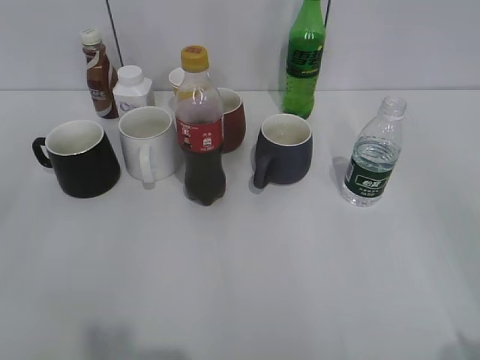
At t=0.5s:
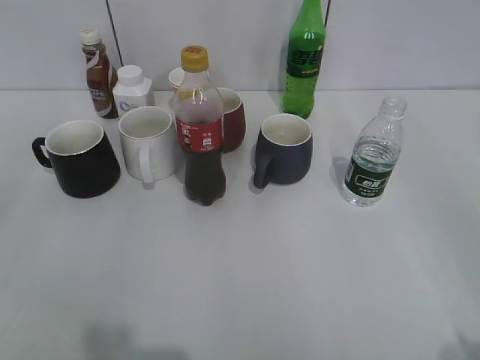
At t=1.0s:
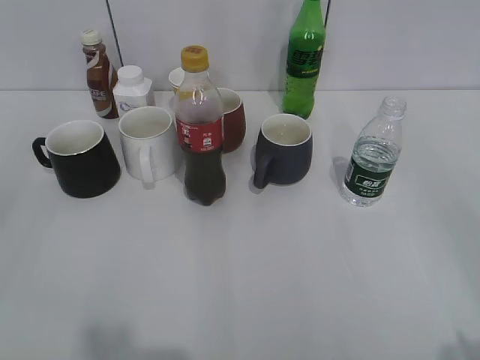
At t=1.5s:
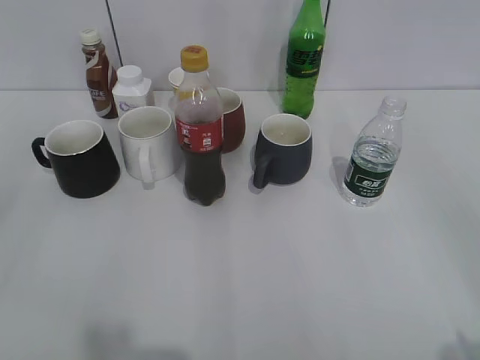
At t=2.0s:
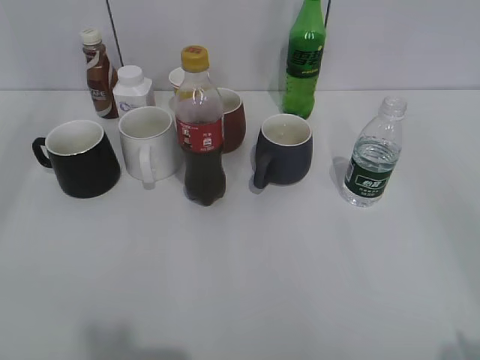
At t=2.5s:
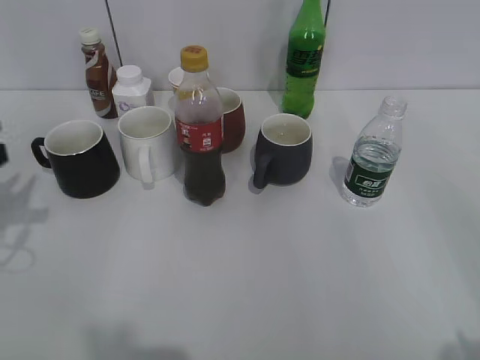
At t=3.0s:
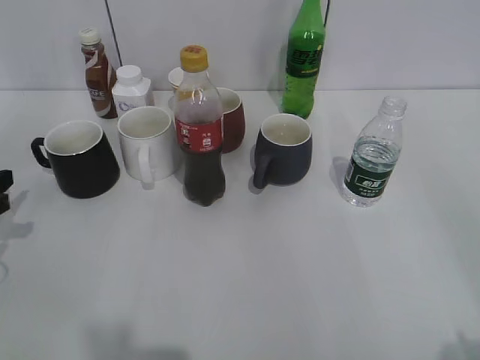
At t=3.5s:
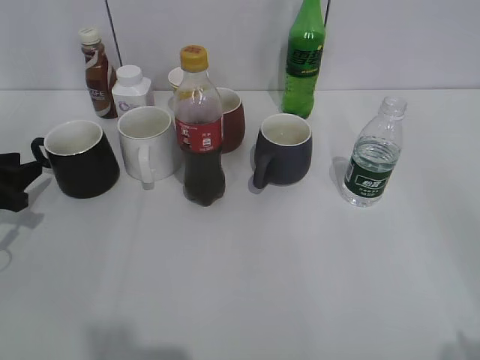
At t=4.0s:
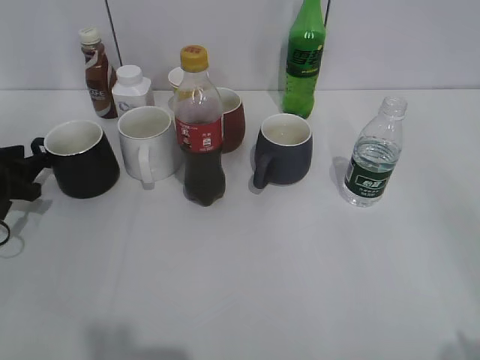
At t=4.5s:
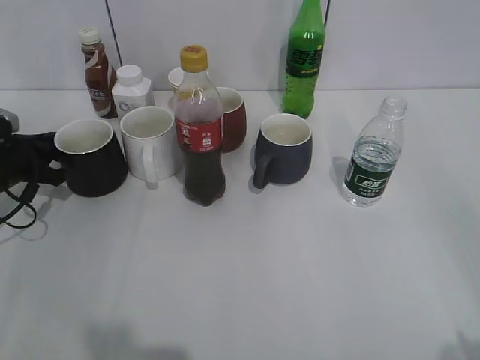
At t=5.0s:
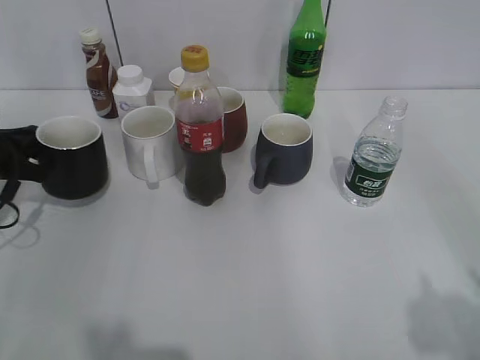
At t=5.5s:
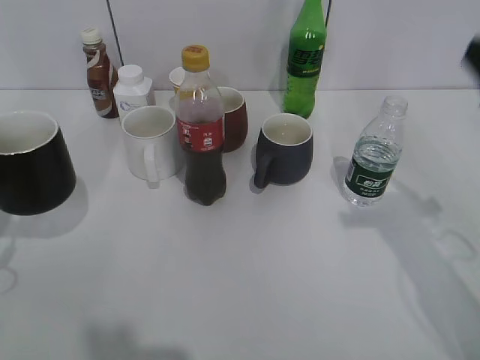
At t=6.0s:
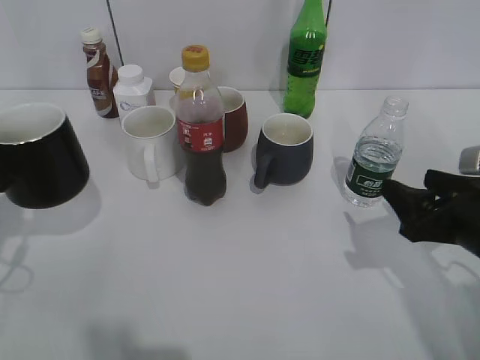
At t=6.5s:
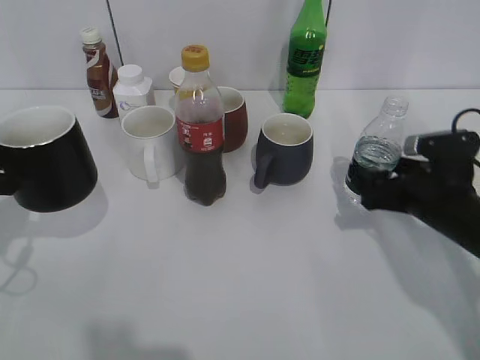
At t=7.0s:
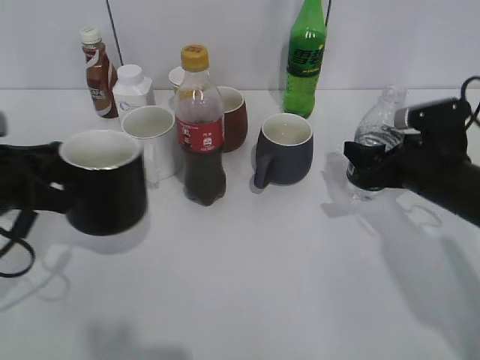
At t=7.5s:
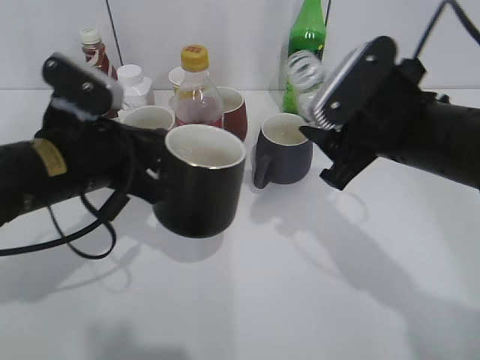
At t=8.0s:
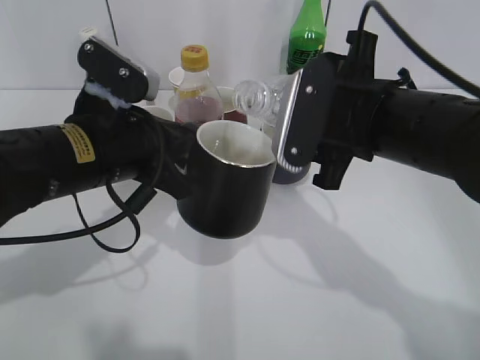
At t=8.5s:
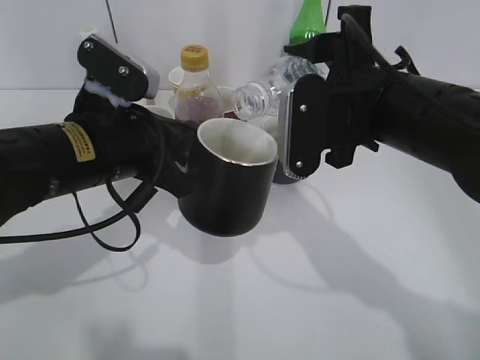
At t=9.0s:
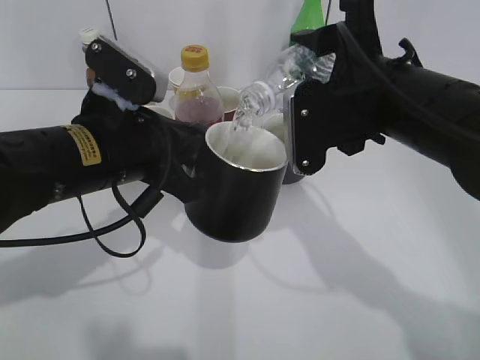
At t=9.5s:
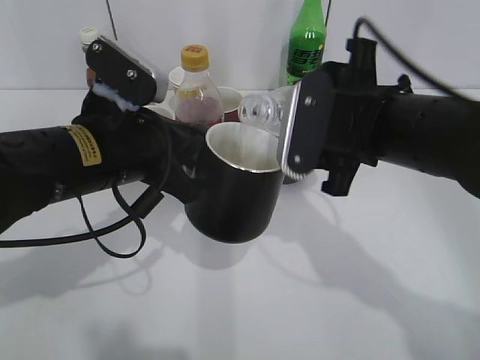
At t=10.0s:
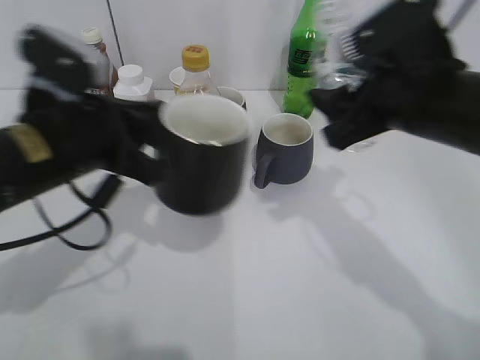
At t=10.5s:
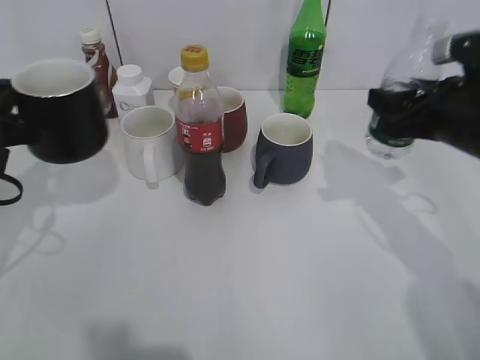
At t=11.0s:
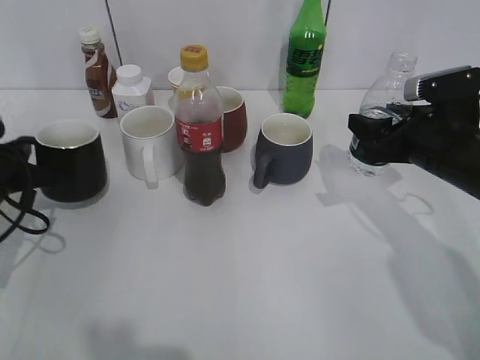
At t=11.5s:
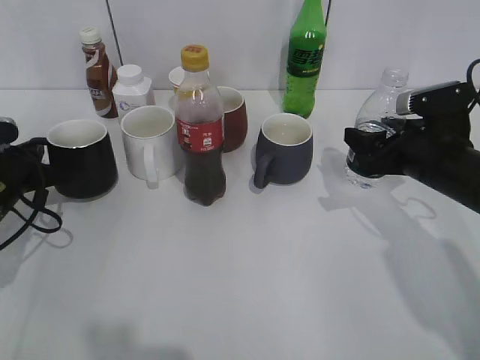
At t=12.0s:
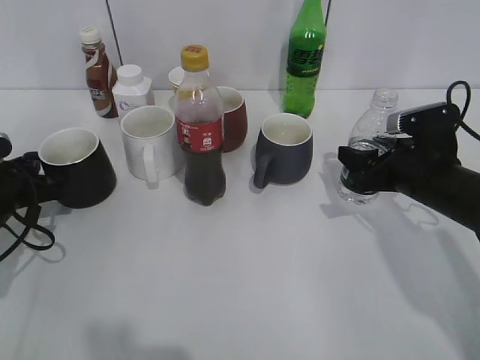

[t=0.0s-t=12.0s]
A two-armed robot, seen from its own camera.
Step, t=2.0s to t=4.5s: Grasp the black cup with left gripper.
Step, t=5.5s to t=6.5s: Grasp the bottle with water with right gripper.
Step, t=7.0s to t=9.5s: Pour the water from bottle to cup with right gripper.
t=2.0s to t=4.0s: The left gripper shifts approximately 35 cm downward and forward, and opens its fingers.
t=4.0s to t=6.0s: The right gripper moves forward and downward, about 25 cm. Meanwhile the left gripper heads backward and upward, covering some 15 cm, and closes.
t=6.0s to t=8.0s: The right gripper shifts about 15 cm to the left and upward, and closes, while the left gripper goes some 20 cm to the right.
t=10.0s to t=12.0s: The left gripper travels downward, to the left and forward by some 20 cm. The right gripper heads downward and to the right, covering some 15 cm.

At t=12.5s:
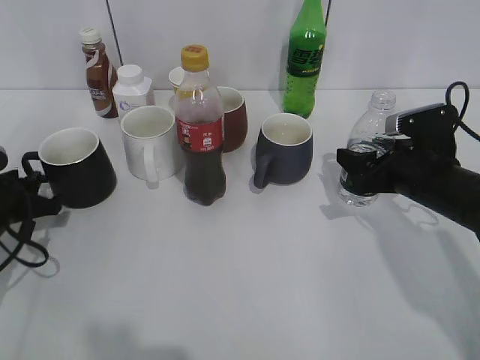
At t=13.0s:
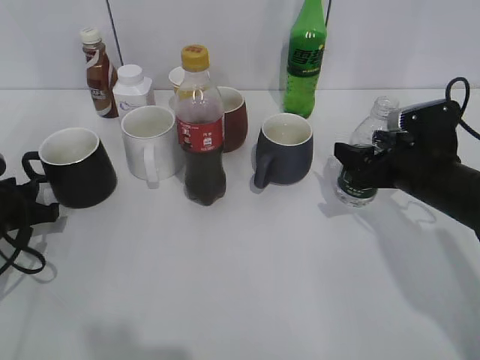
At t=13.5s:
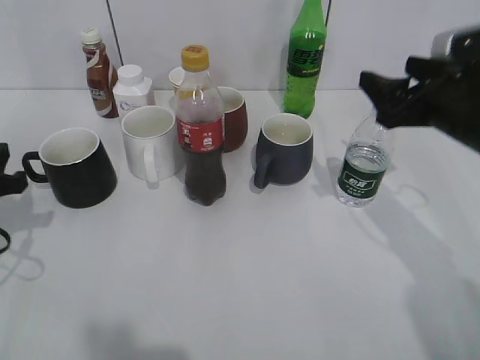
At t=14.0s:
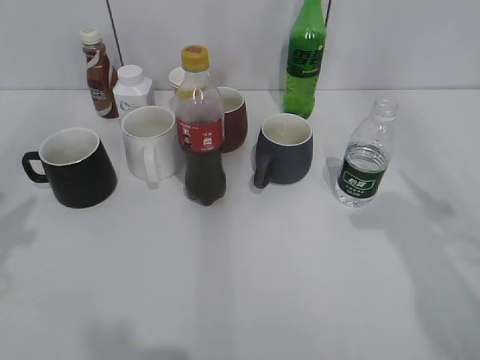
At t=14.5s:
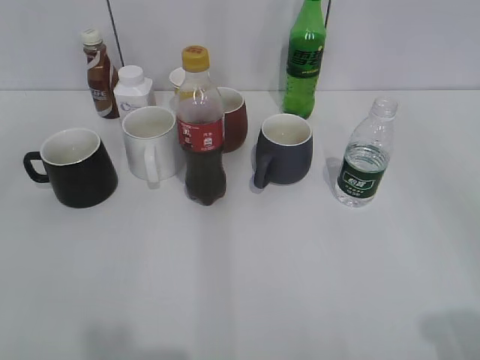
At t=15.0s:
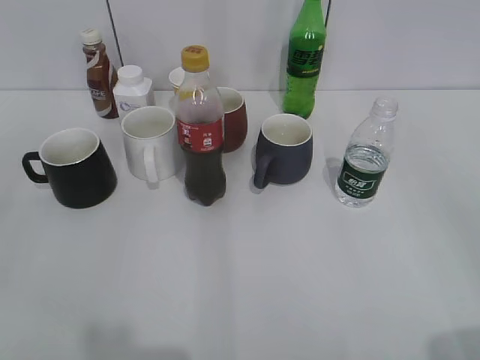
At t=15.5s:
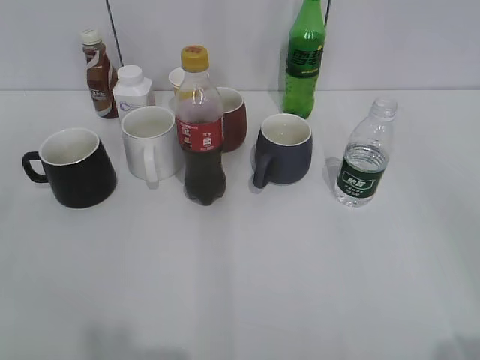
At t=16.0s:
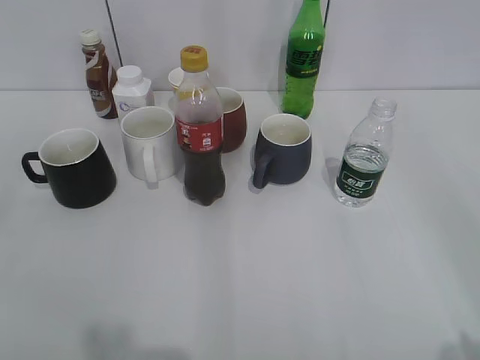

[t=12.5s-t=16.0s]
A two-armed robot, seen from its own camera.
t=12.5s to t=14.5s: Both grippers move backward and upward, some 35 cm. The right gripper opens.
t=14.5s to t=16.0s: The grippers stay close to where they were, moving slightly.

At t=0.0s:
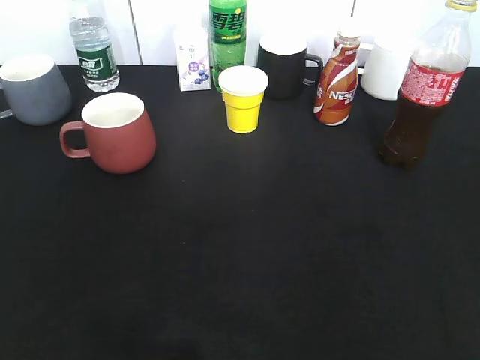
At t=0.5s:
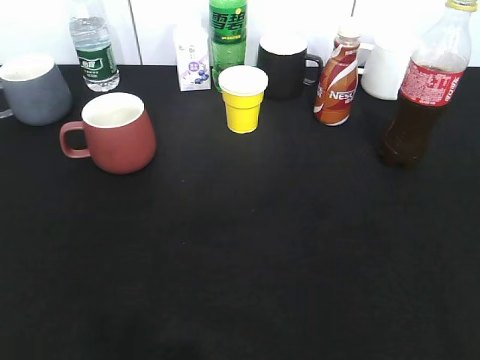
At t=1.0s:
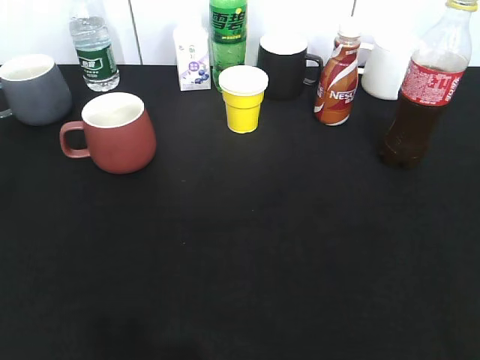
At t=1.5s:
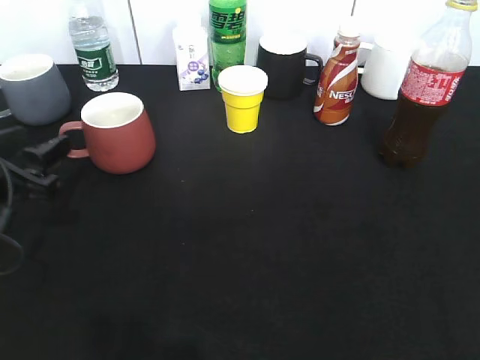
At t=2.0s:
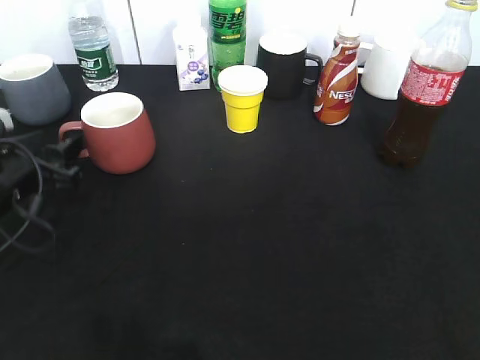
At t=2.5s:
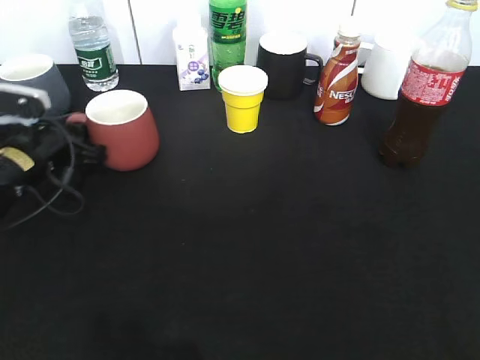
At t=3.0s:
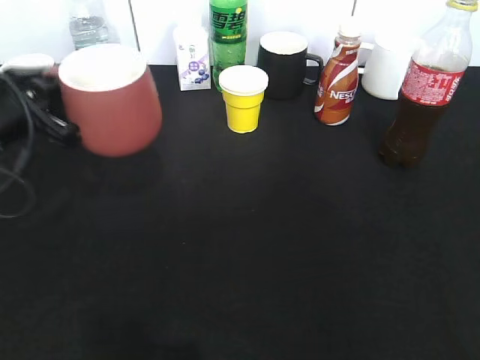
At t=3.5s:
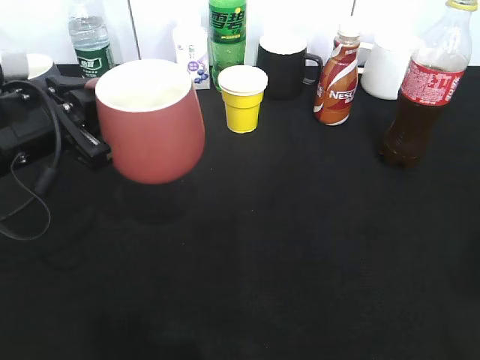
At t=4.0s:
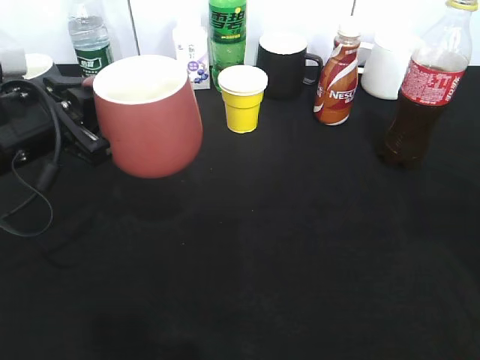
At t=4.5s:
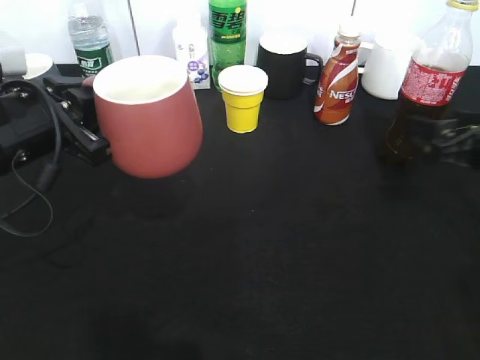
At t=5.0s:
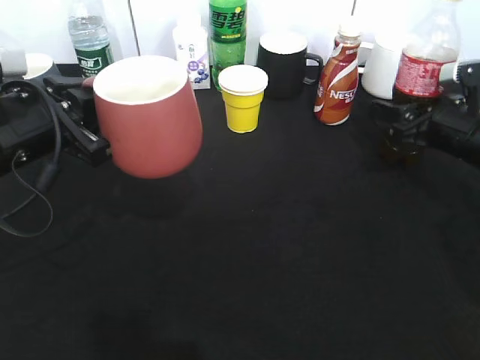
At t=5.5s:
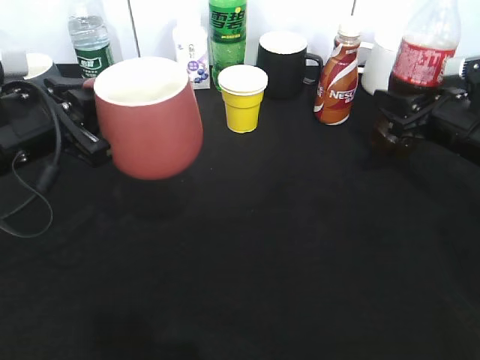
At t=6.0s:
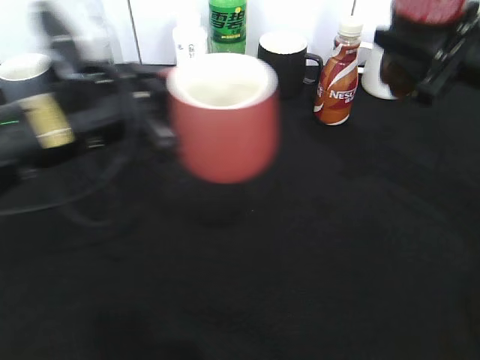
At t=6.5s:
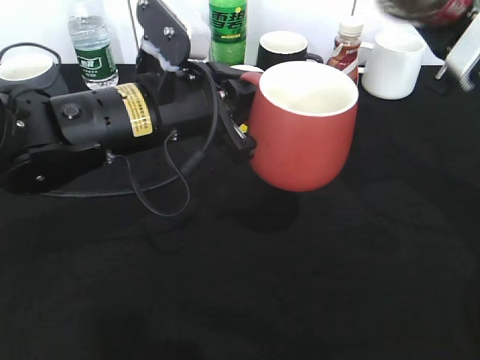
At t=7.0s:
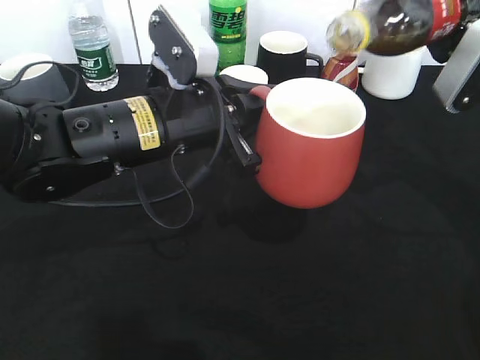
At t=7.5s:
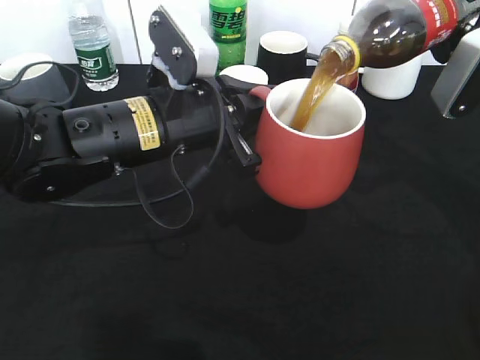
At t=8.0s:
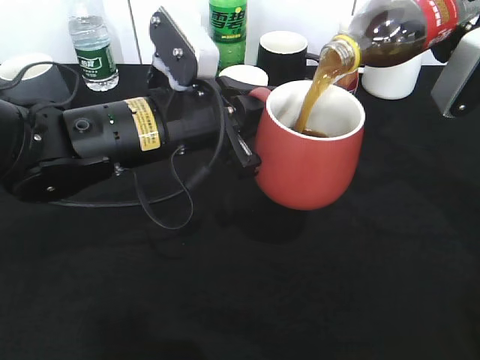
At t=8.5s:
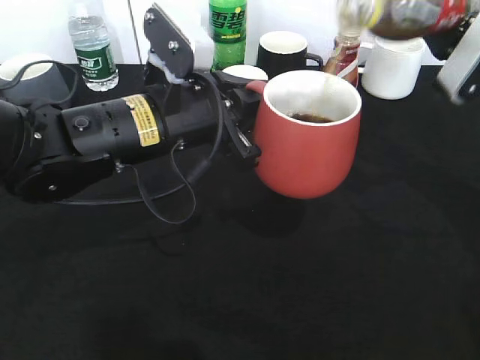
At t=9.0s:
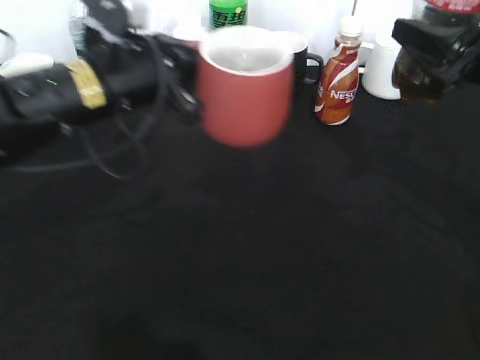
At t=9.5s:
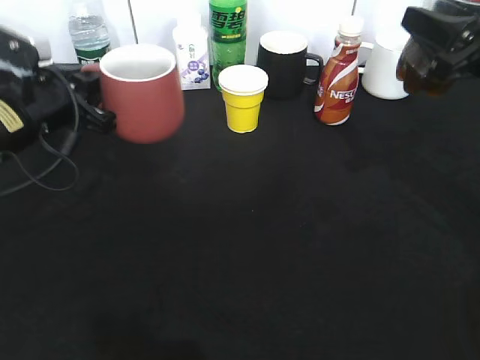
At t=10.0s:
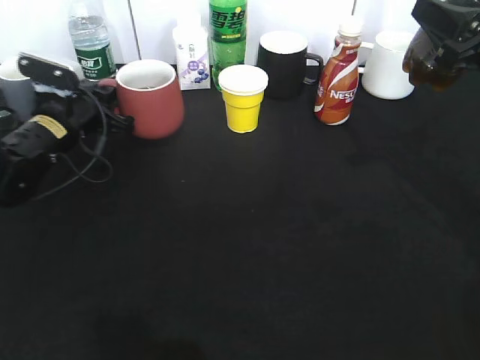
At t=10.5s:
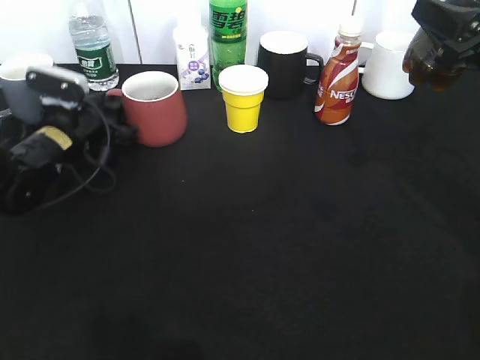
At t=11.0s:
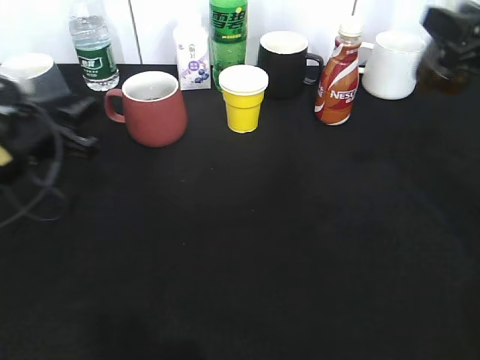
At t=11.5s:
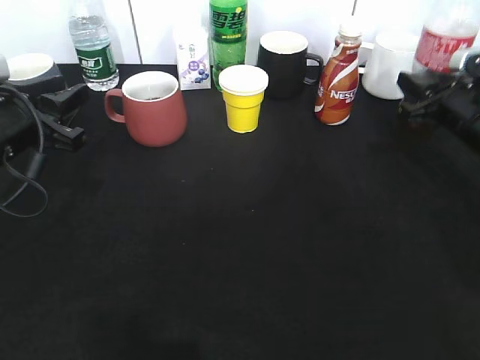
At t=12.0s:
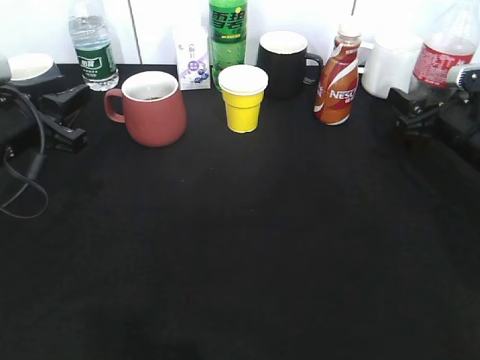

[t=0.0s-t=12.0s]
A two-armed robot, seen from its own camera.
Step, t=0.0s to t=2.5s: Grasp the red cup with left gripper.
Step, t=3.0s to t=3.5s: Lift the red cup with left gripper.
Step, t=4.0s to t=5.0s: Grasp the bottle with cola with right gripper.
Step, t=5.5s to t=8.5s: Pour the cola from bottle to cup with right gripper.
Step, t=9.0s to t=11.0s: Place the red cup on the table with left gripper.
t=0.0s to t=2.0s: The left gripper heads forward and downward, covering about 35 cm, and opens its fingers.
t=2.0s to t=4.0s: The left gripper travels upward and to the right by about 10 cm, and closes up. The right gripper moves forward, roughly 20 cm.
t=4.0s to t=6.0s: The left gripper heads to the right, covering some 5 cm; the right gripper is displaced forward by about 10 cm, and closes its fingers.
t=6.0s to t=8.0s: The left gripper is displaced to the right by approximately 5 cm.
t=8.0s to t=10.0s: The left gripper is displaced to the left, forward and downward by some 20 cm.
t=10.0s to t=12.0s: The left gripper shifts some 15 cm backward and upward, and opens; the right gripper is displaced downward and forward by roughly 15 cm, and opens up.
